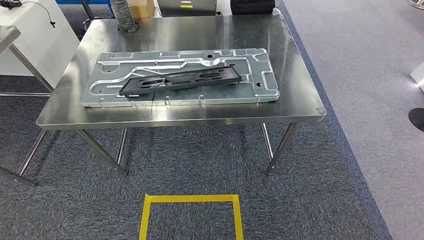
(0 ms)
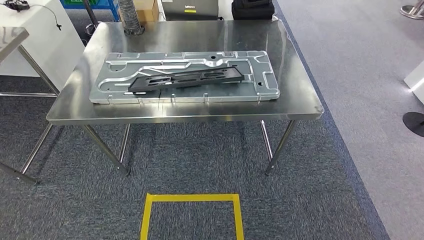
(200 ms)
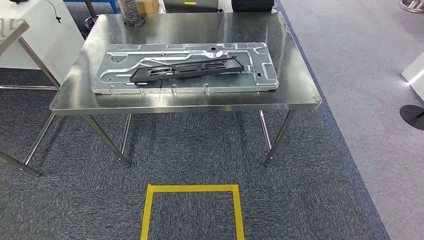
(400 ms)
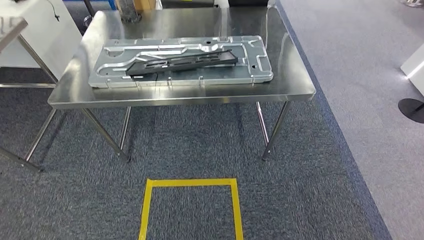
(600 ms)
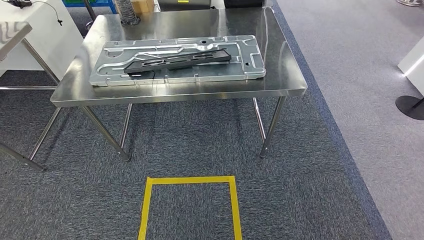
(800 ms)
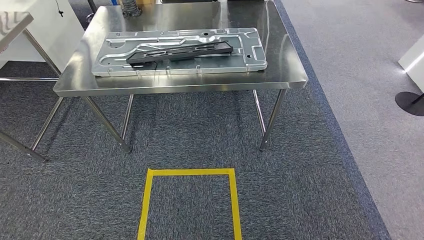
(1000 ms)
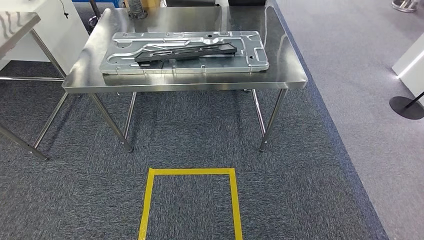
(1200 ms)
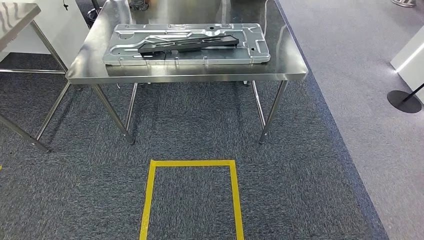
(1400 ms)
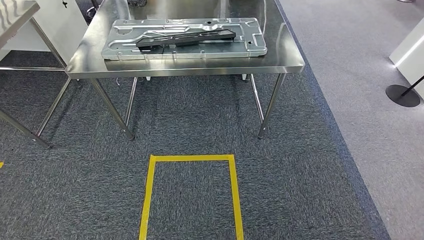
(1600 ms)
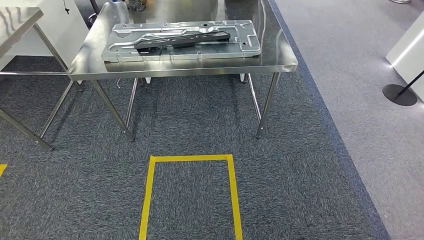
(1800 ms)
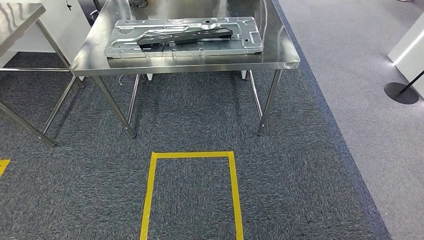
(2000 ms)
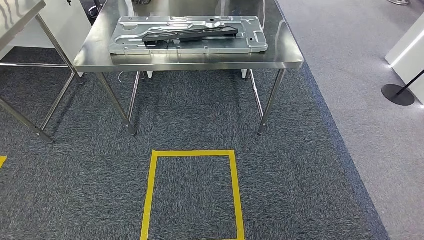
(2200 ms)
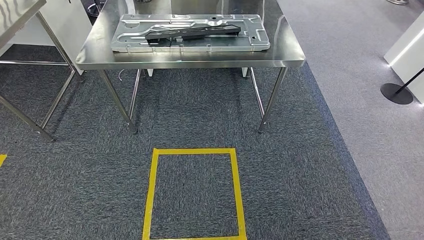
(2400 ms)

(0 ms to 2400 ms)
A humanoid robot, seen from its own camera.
Step, 0 ms - 2400 ms: Return to the initial position at the shelf.
